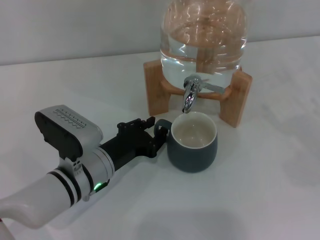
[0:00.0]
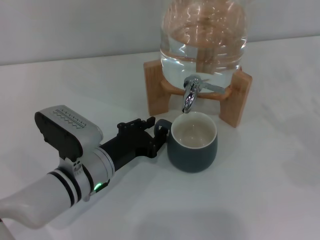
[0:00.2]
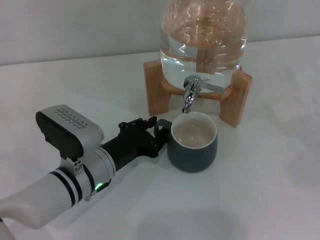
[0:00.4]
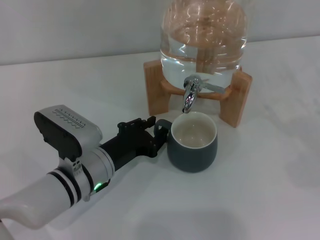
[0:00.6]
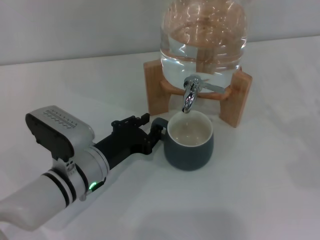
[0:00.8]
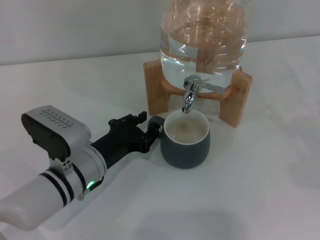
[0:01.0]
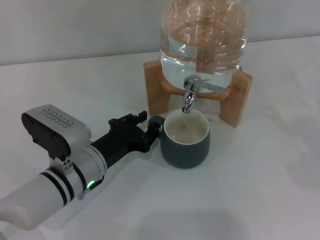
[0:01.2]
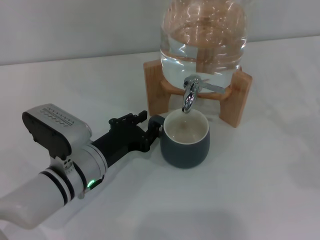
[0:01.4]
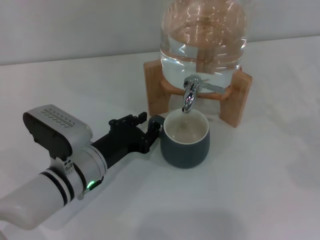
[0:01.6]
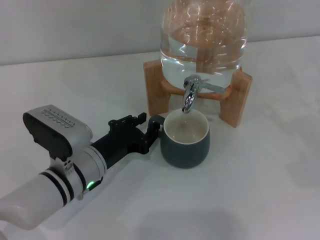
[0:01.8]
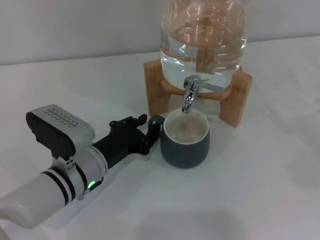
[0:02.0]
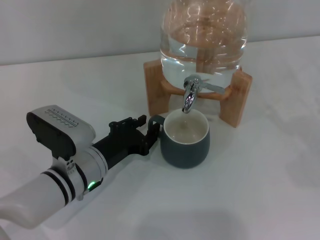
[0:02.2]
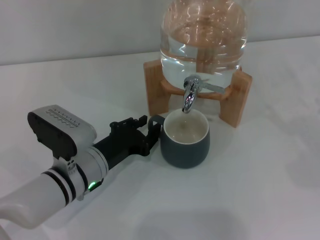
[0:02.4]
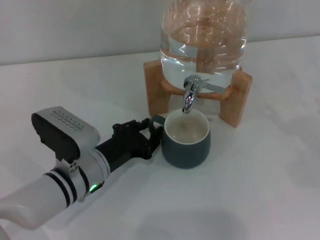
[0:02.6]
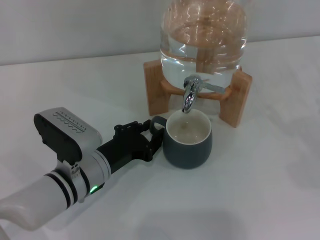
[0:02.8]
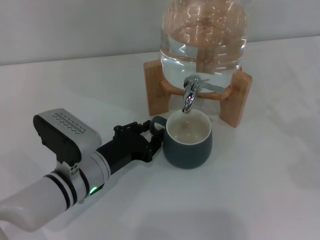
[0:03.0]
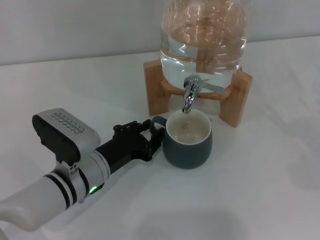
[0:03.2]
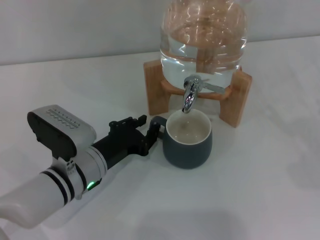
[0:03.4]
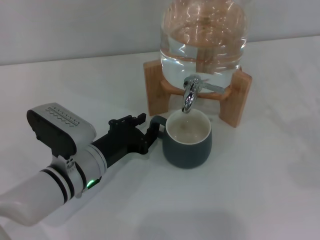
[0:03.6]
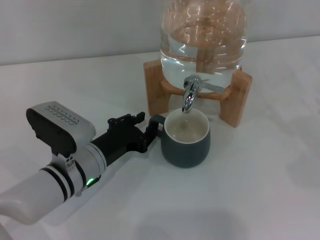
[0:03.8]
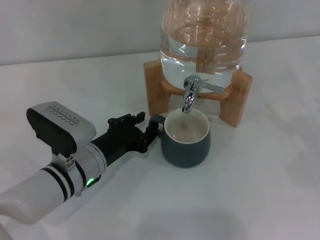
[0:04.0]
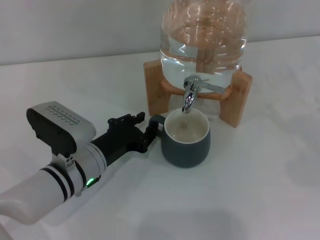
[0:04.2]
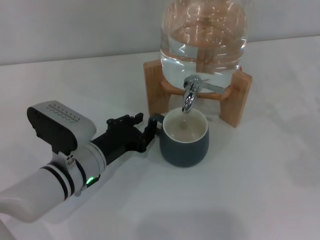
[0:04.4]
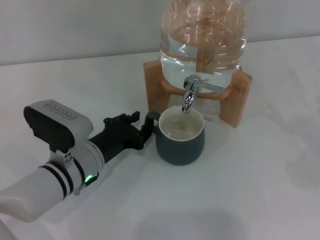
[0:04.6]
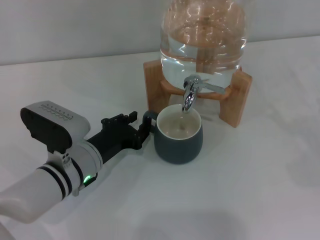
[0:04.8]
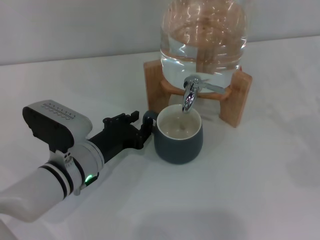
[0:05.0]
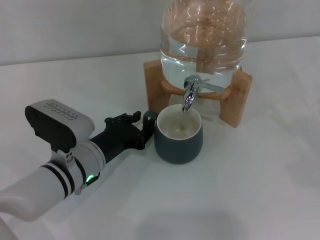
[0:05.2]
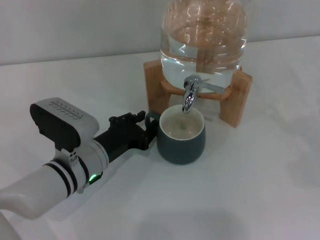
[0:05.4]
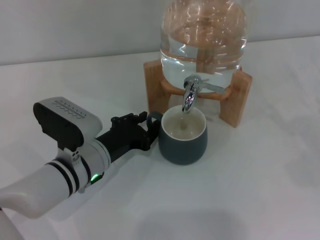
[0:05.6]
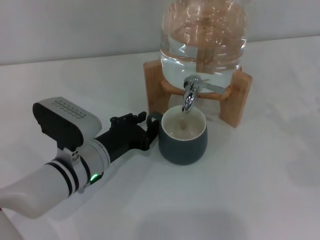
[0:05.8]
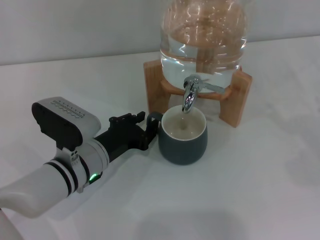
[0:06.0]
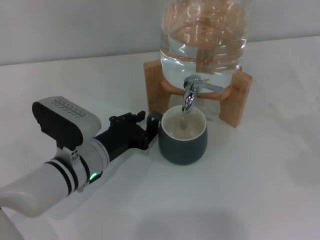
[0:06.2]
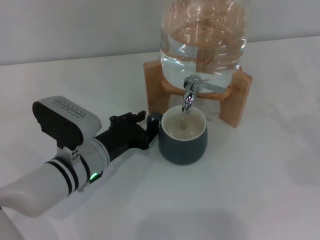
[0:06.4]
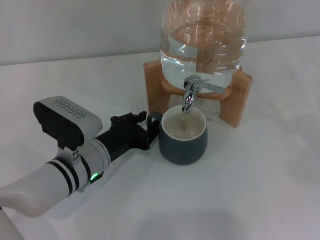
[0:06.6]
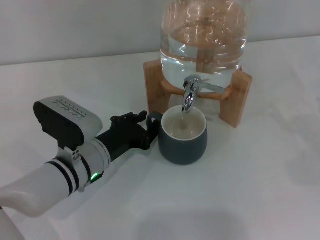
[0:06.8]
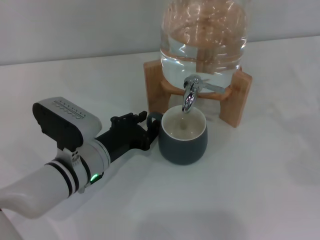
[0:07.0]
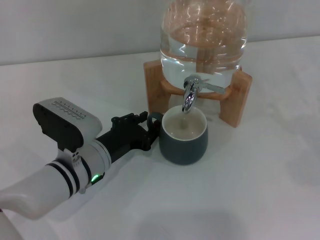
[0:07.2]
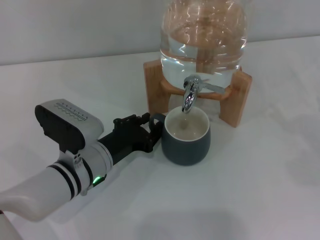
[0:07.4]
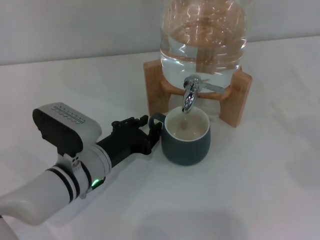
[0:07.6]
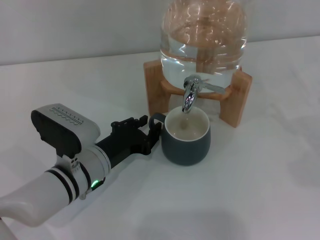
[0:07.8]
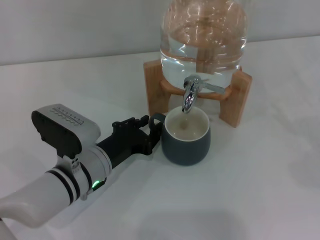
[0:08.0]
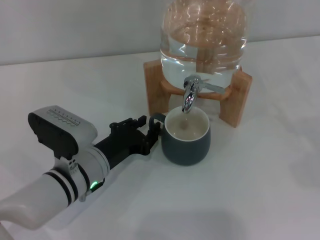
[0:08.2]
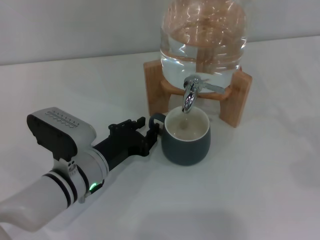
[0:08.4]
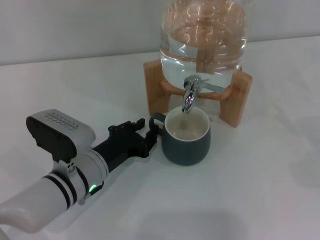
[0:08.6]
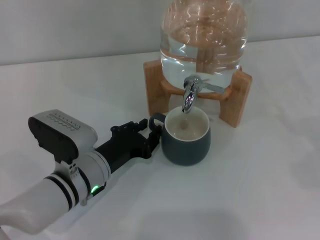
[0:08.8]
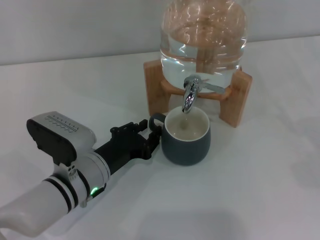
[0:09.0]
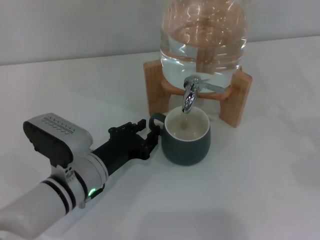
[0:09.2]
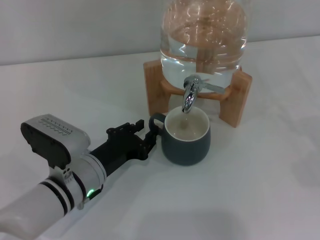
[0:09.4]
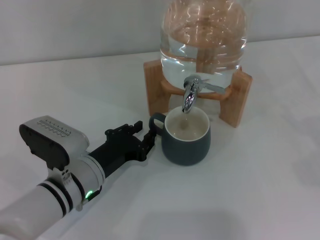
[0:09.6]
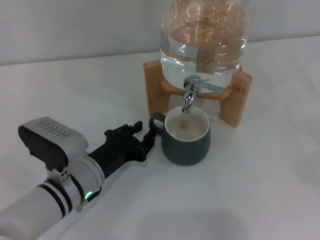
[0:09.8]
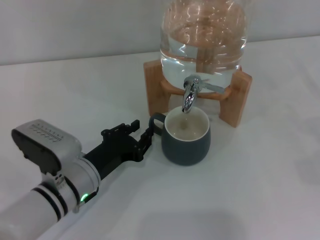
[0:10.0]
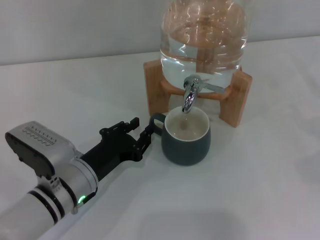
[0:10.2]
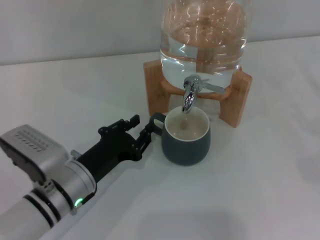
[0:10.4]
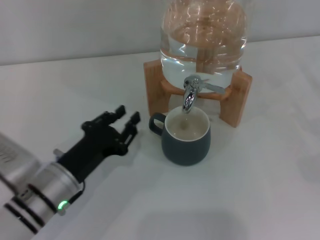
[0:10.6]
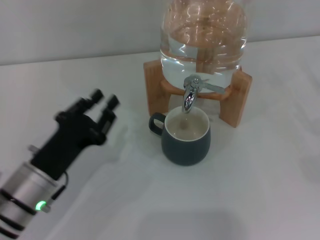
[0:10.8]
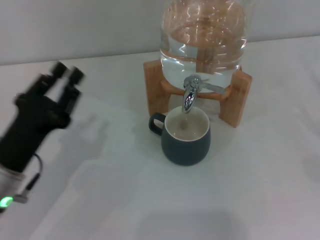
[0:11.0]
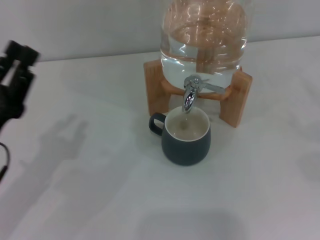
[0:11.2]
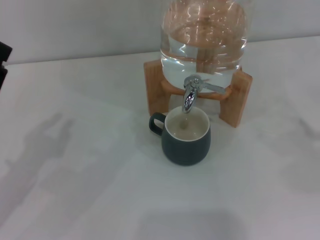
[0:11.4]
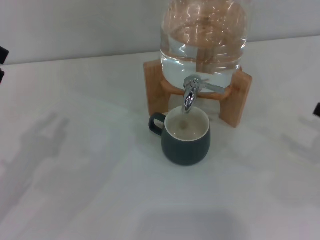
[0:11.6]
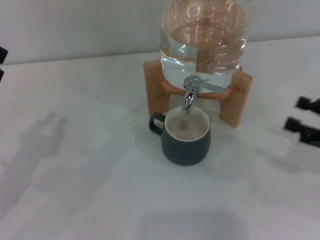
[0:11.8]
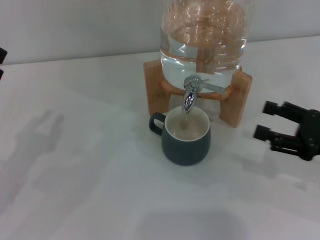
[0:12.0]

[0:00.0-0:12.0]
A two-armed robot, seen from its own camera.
Task of the whole recording: the left gripper pick up the black cup and place it horizontally under the faucet, the right gripper turn on the faucet to fill the cup, and then turn off the faucet.
Step, 0.0 to 10.0 s: Move the cup beneath the water dispenser nozzle with the left gripper.
0.0 to 1.6 s: The two grippers keep their place.
1.6 to 3.0 s: There are only small adjustments of the grippers.
3.0 to 4.4 s: Both grippers stay about where they are.
4.4 to 7.6 s: Both grippers stay put.
7.6 to 9.0 s: Neither gripper changes place.
9.0 to 10.4 s: The grippers make only small movements.
10.4 to 12.0 s: The left gripper heads to the left and upward, covering approximately 15 cm; the right gripper travels to the left by some 10 cm.

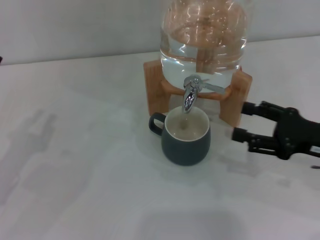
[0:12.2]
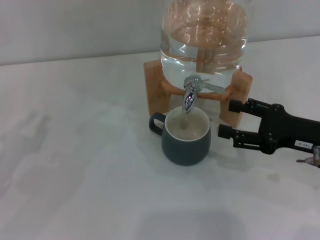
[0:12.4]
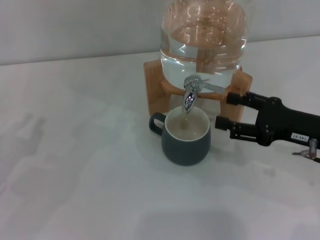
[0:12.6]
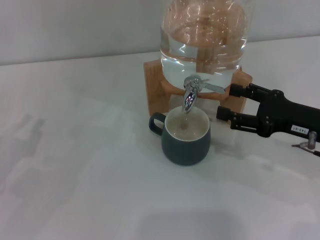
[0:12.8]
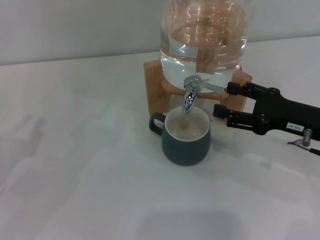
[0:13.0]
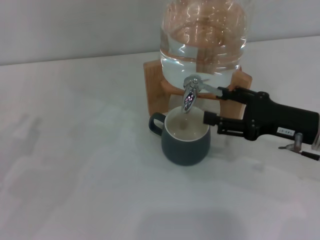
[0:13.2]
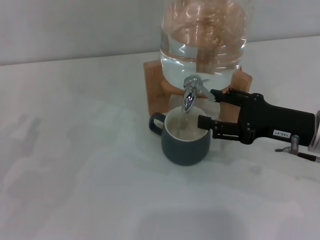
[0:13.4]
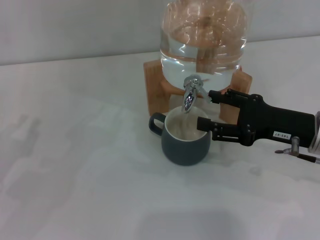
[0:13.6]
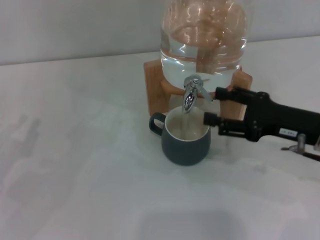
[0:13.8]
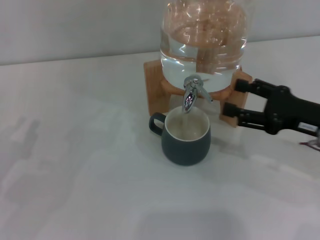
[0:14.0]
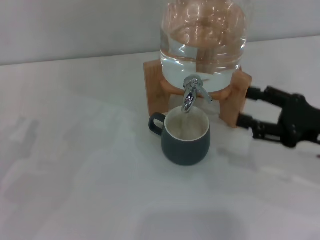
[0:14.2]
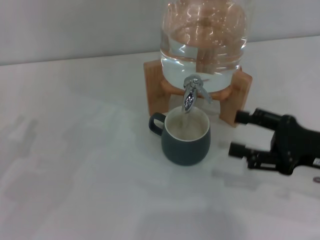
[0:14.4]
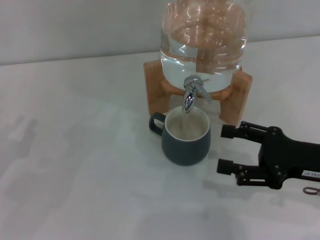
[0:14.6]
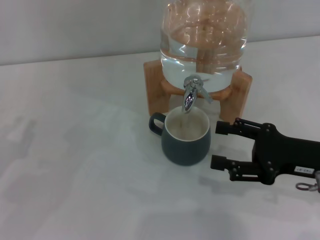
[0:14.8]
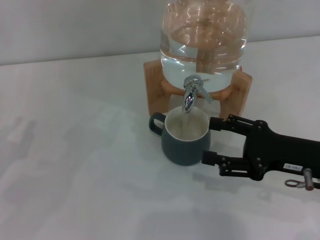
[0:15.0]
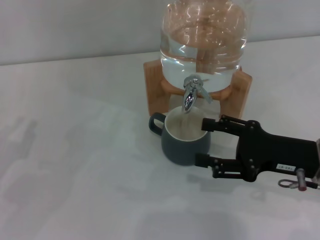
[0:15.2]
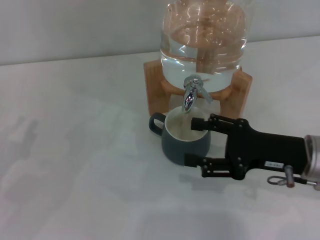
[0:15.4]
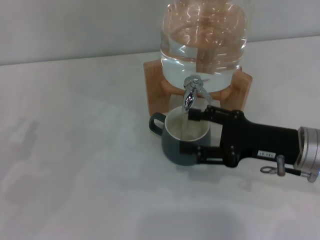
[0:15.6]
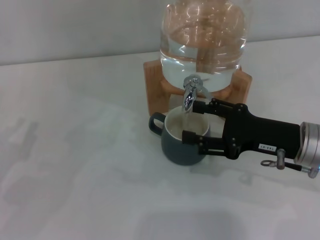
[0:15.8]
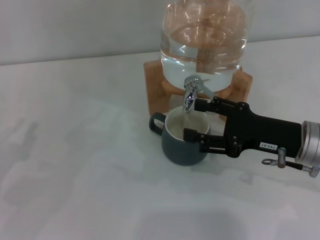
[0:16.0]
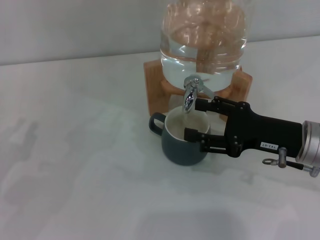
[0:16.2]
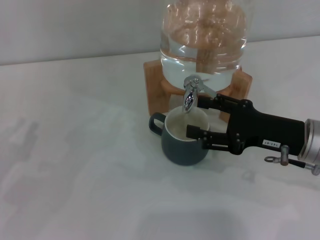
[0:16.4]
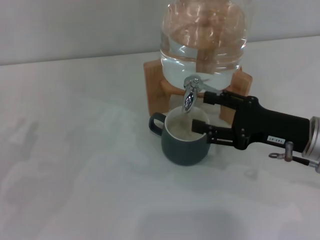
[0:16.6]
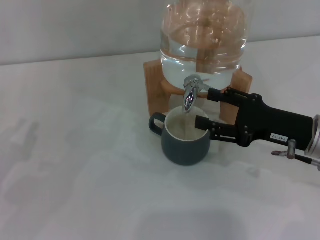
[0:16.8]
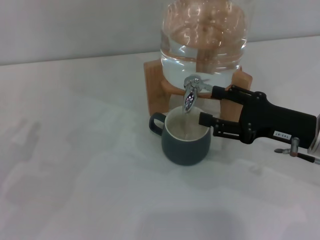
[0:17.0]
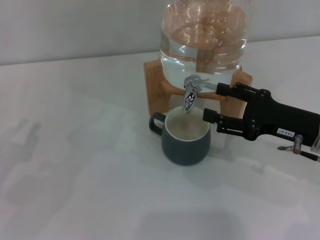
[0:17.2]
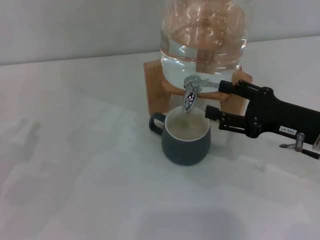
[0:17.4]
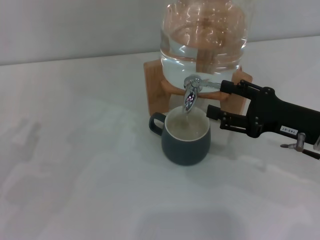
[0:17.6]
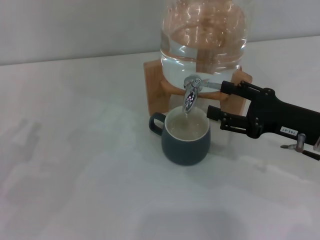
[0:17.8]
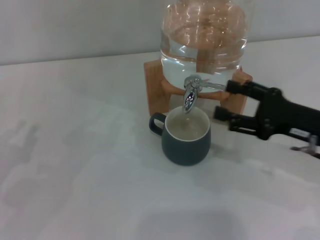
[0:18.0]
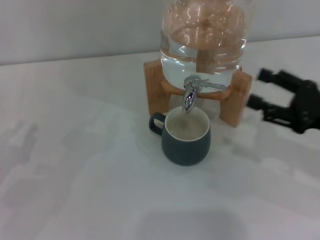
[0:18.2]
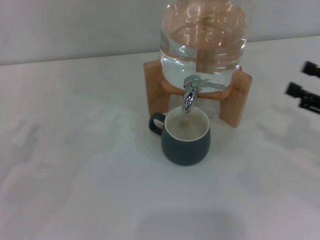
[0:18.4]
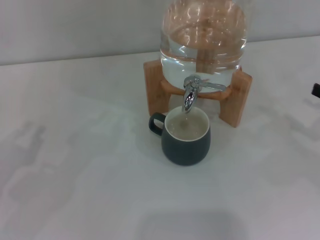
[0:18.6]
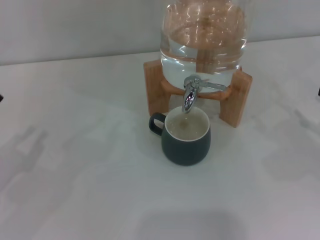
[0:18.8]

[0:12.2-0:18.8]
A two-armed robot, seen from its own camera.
Task of the whole recording: the left gripper pick up the black cup and place it horizontally under the faucet, the right gripper turn on the faucet to fill the cup, and then turn off the faucet.
Step, 13.8 to 17.8 s: Close the dispenser valve with the right gripper.
12.2 to 15.4 s: The grippers stay close to where they were, moving slightly.
15.4 to 17.2 s: The grippers move only a little.
17.2 to 18.8 s: The right gripper shifts approximately 15 cm to the right.

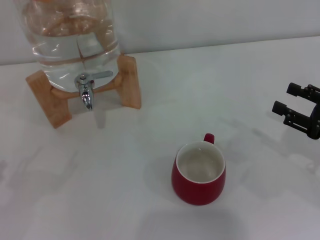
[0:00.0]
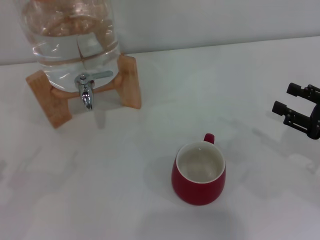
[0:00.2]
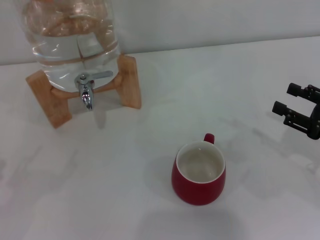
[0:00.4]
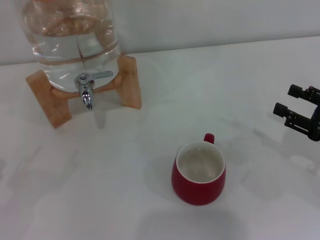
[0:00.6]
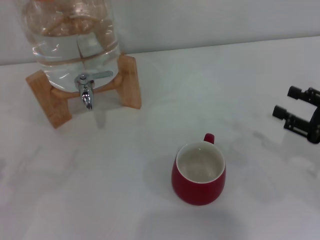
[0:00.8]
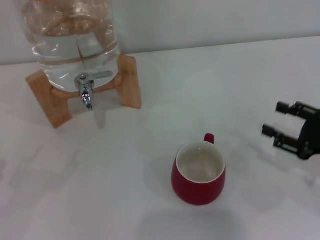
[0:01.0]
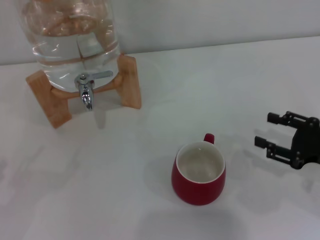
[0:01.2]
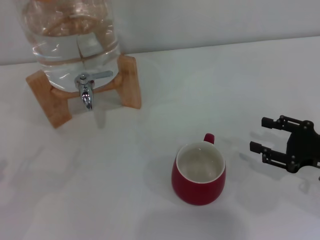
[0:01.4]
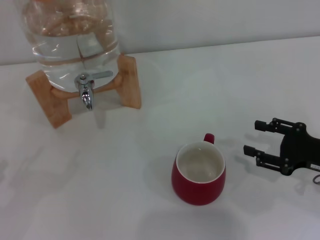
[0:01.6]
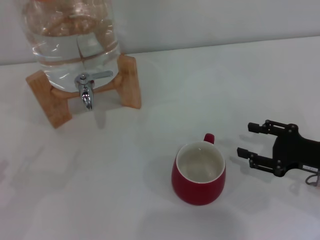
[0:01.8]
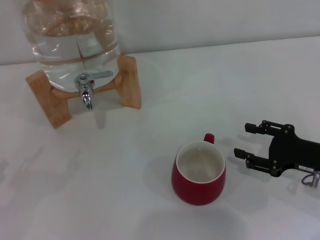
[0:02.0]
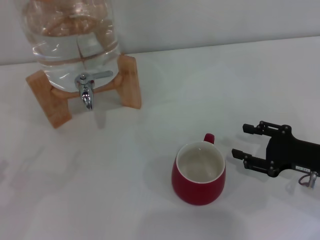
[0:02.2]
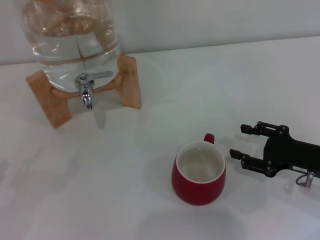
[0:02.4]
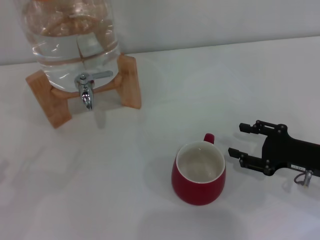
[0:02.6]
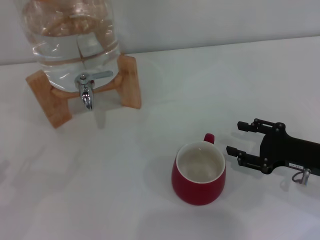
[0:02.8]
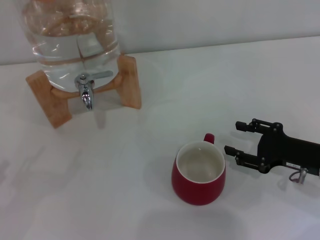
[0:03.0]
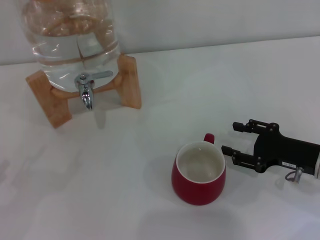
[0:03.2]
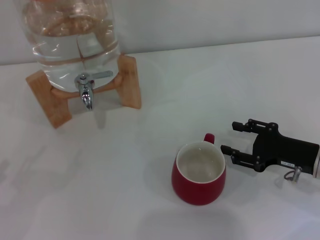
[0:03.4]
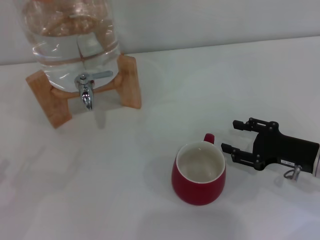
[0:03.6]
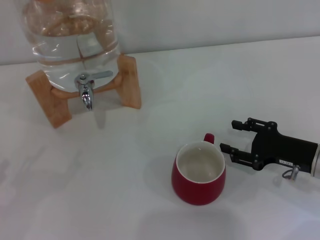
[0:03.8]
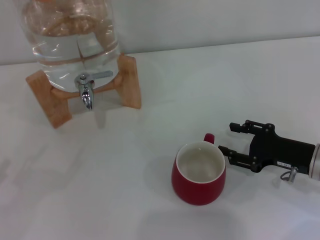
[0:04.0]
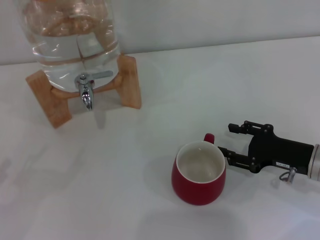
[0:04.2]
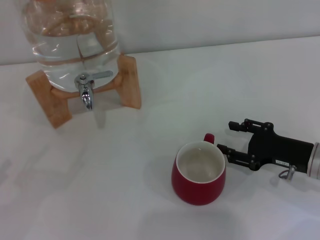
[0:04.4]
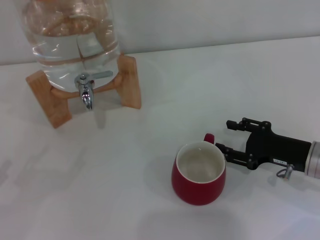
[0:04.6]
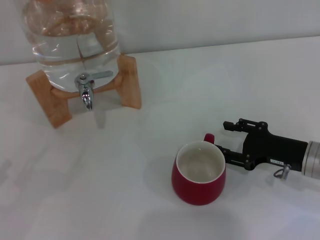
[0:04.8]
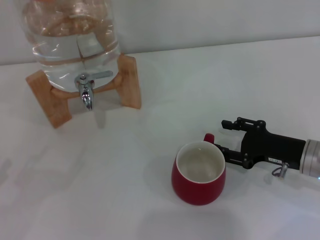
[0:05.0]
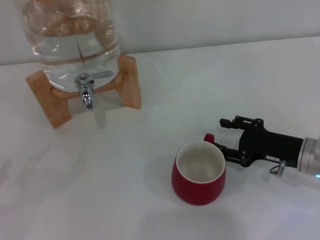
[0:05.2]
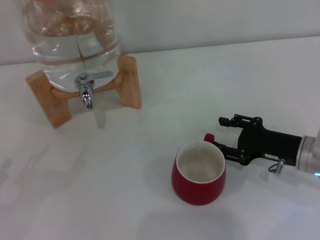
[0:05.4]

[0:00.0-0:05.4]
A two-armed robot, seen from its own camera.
Task of the whole recording: the right gripper pick up the red cup and place it horizontally under the faucet, the left gripper turn on the faucet to fill the cup, and then turn off the faucet.
0.0 to 1.4 s: The grippers make only small movements.
1.4 to 4.0 s: The grippers make only small movements.
4.0 to 5.4 s: The grippers make only small movements.
